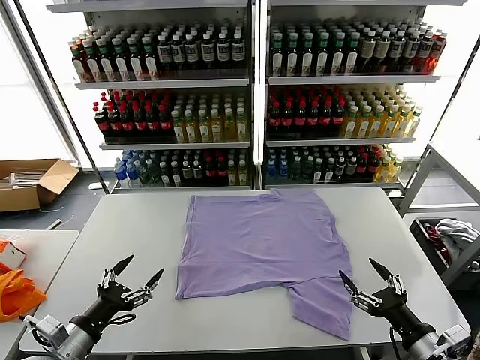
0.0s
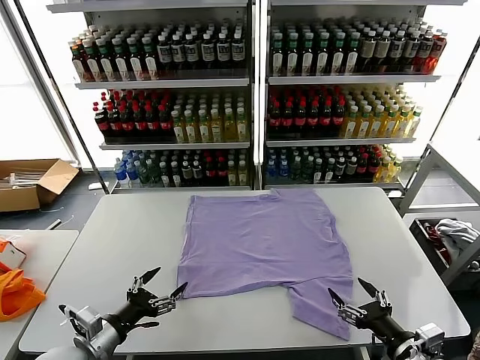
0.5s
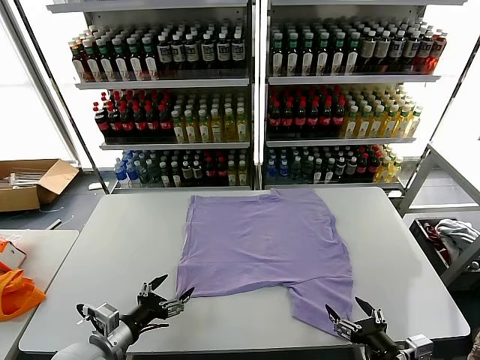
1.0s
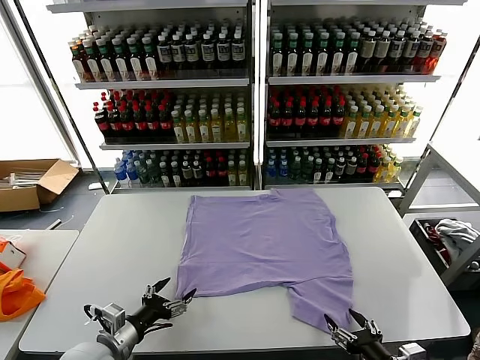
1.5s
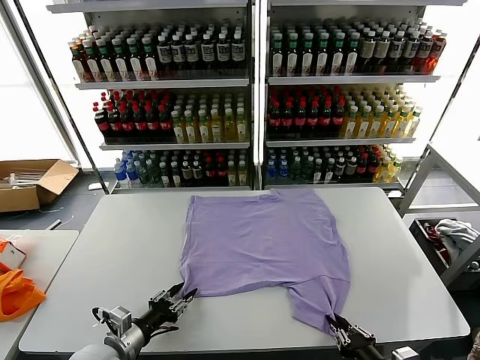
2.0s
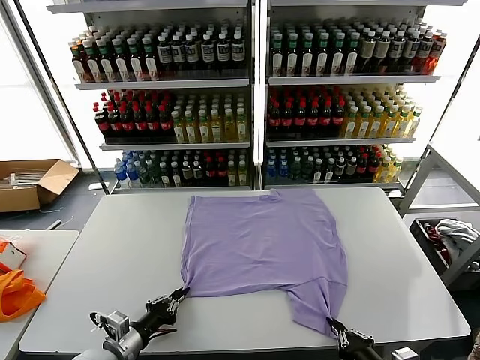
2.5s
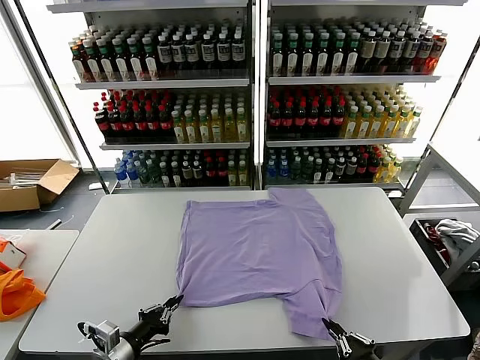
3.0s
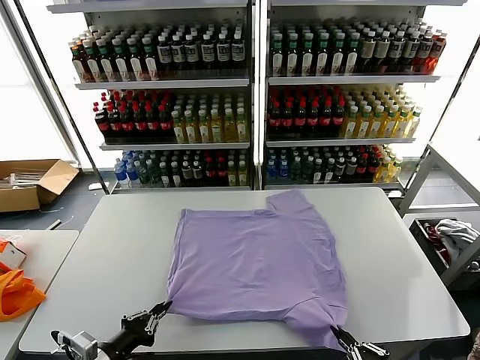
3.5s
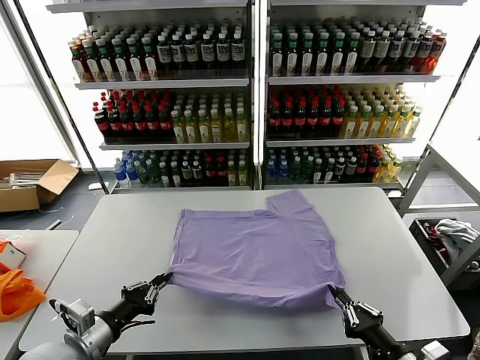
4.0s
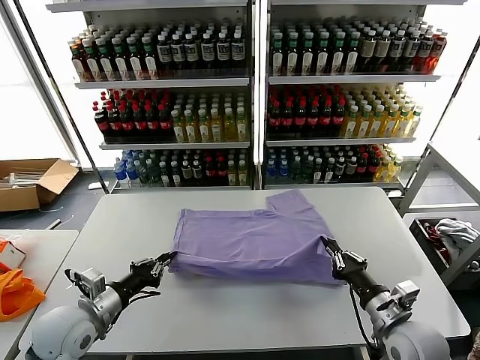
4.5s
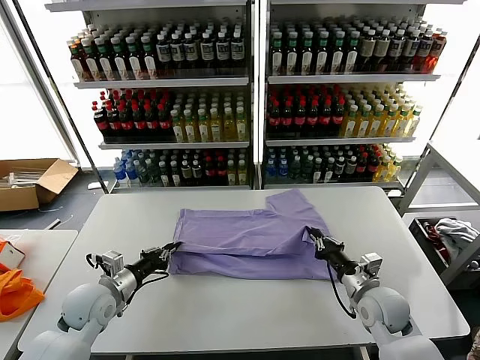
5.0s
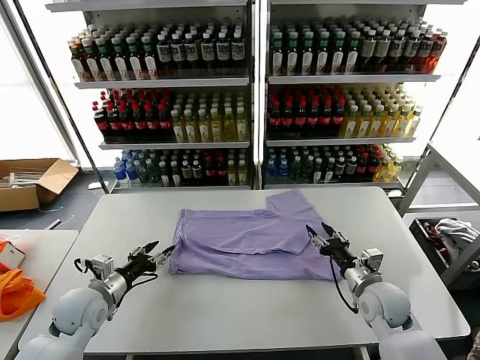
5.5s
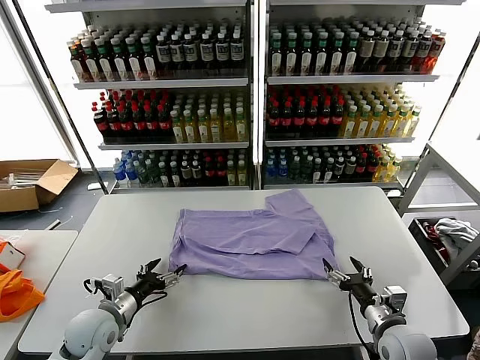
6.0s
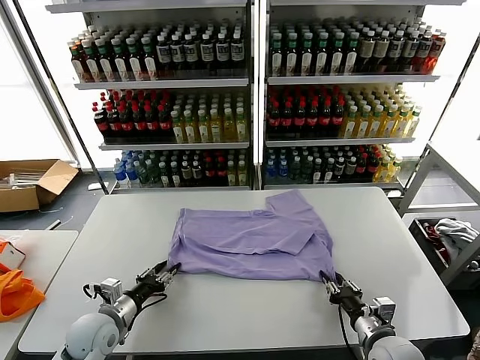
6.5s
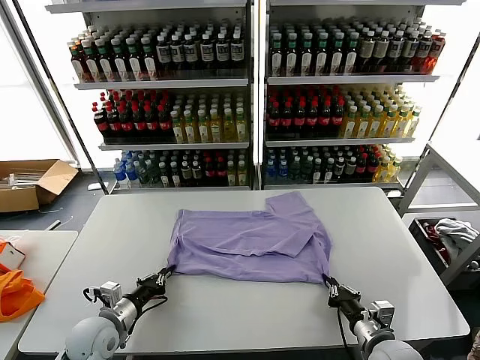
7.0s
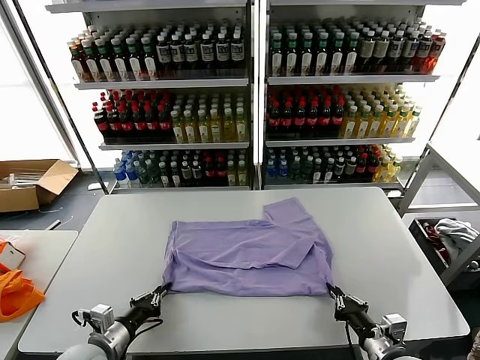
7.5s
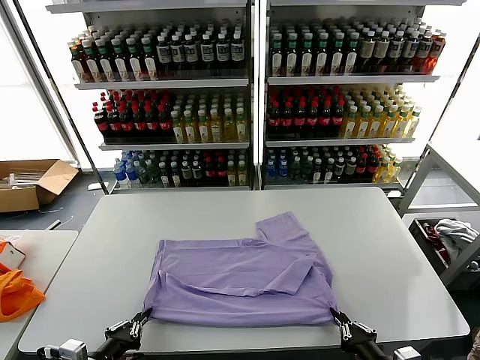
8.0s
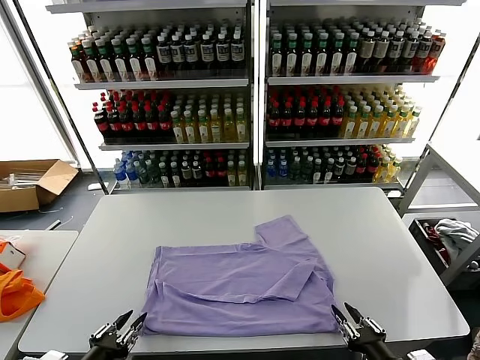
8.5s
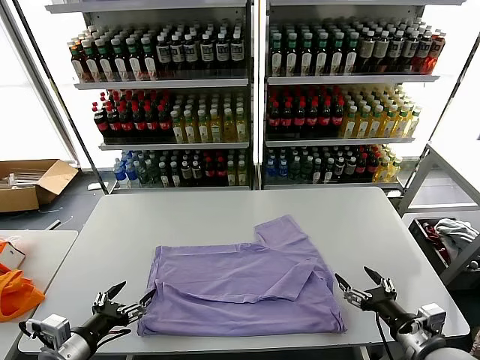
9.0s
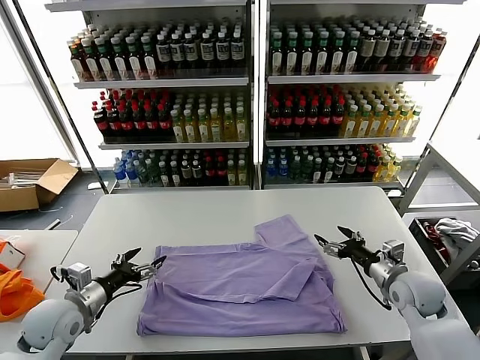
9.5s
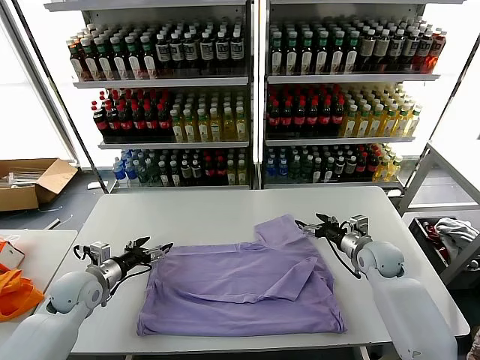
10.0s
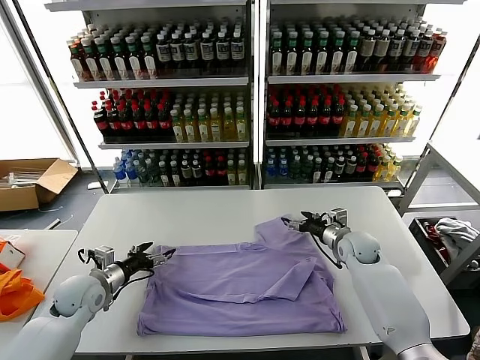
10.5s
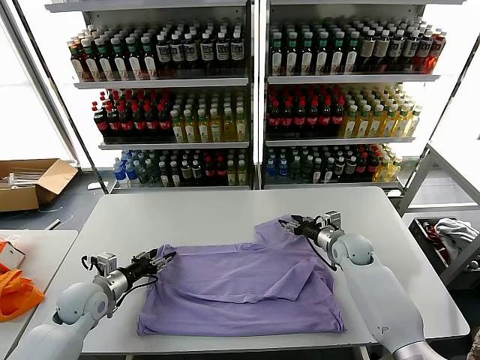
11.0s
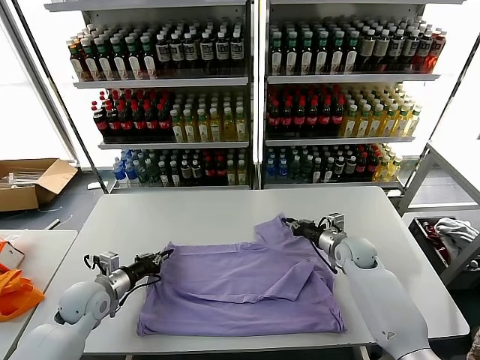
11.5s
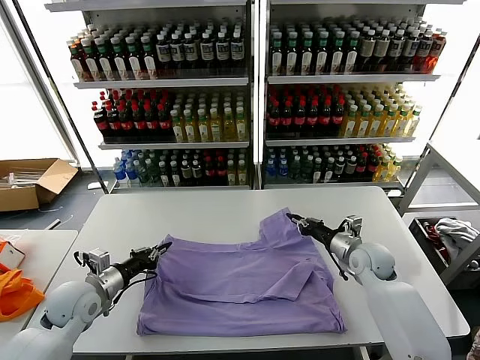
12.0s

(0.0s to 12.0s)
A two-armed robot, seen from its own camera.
Task of the whole recording: fold and organize the clothes.
Step, 0.0s - 2.5s: use both grippers simultaneously to clamp the lower edge of the clothing fabric.
Step, 3.0s - 5.0s: use both grippers to drag the lower edge of the fabric forward and fold it over the upper edge.
Step, 5.5s - 8.0s: Drag the clothes downward with both gripper.
Step, 8.5s - 11.0s: use both grippers simultaneously to clamp the upper edge of the clothing fabric.
2.0s - 4.0s: The right gripper shifts by some 5 cm. Meanwhile the left gripper goes roughly 10 cm upward, and closes up.
4.0s - 6.0s: Both grippers move forward and downward, about 10 cm. The right gripper opens up. Meanwhile the left gripper opens.
6.0s - 8.0s: Both grippers move backward, roughly 15 cm. The right gripper closes. The left gripper closes up.
8.0s - 10.0s: The left gripper is displaced forward by some 20 cm, and opens its fingers; the right gripper heads forward, covering approximately 35 cm, and opens its fingers.
10.0s - 12.0s: The left gripper closes. The right gripper closes.

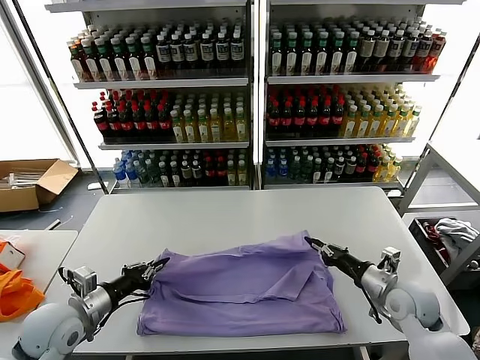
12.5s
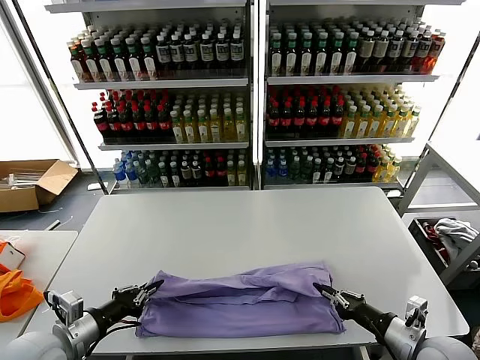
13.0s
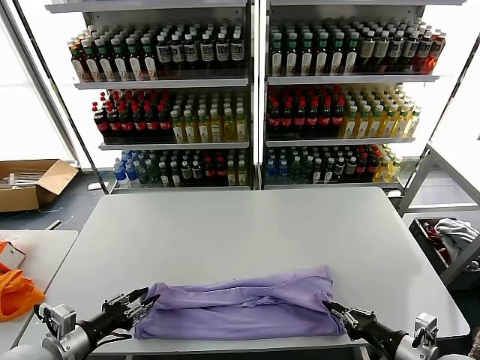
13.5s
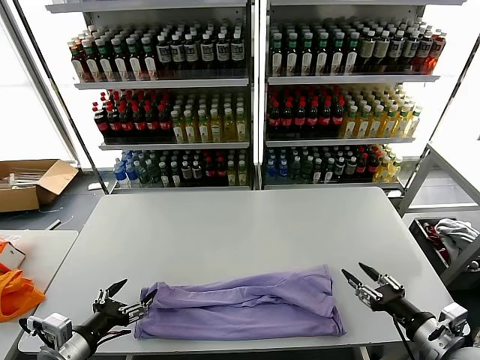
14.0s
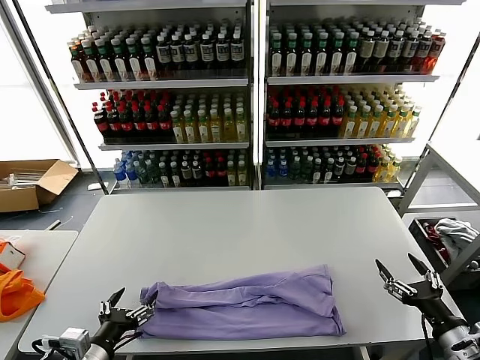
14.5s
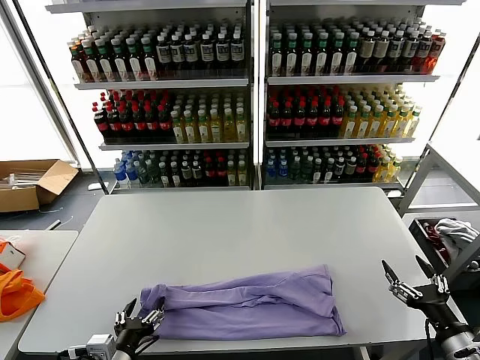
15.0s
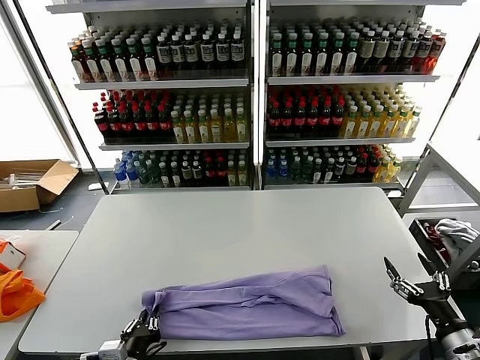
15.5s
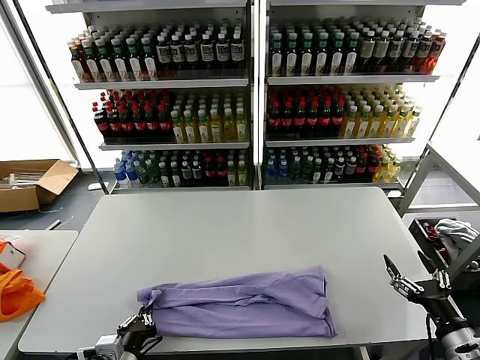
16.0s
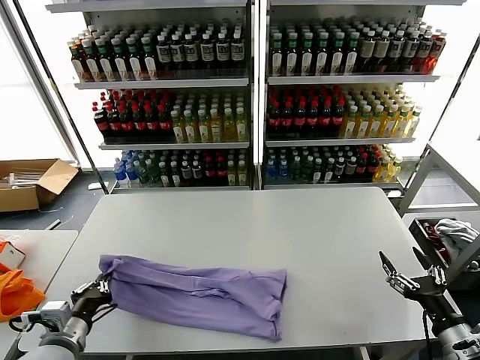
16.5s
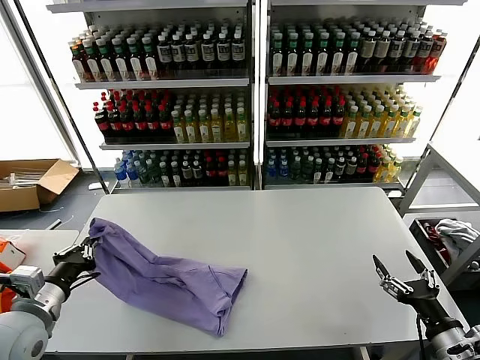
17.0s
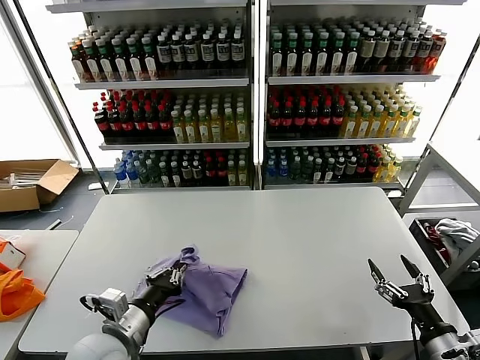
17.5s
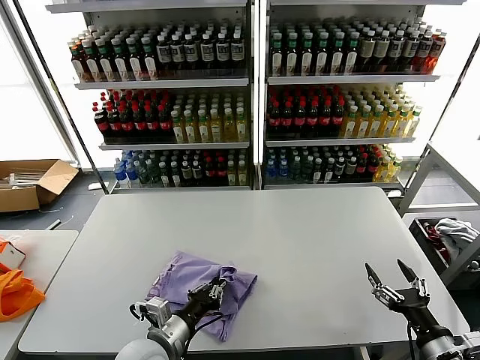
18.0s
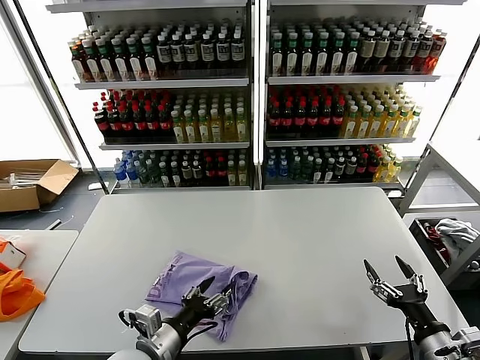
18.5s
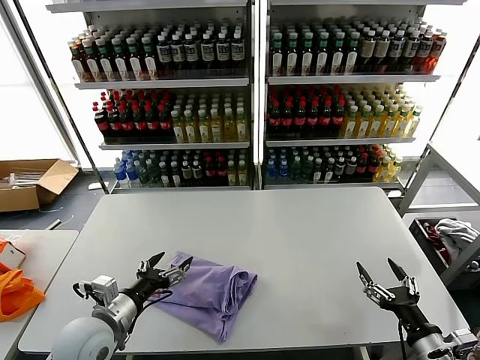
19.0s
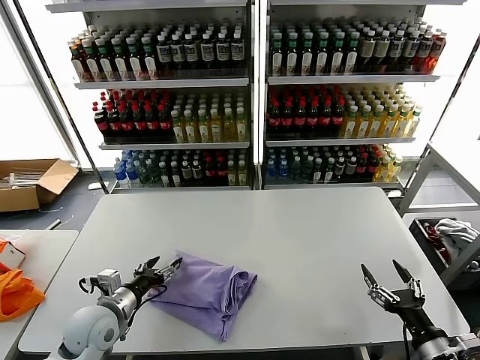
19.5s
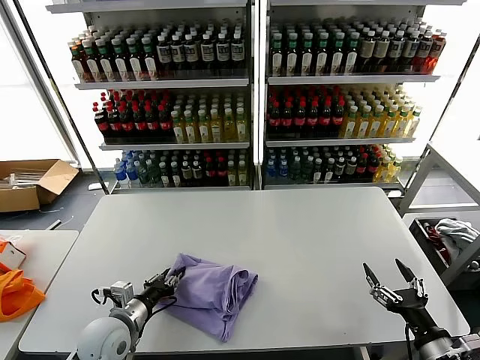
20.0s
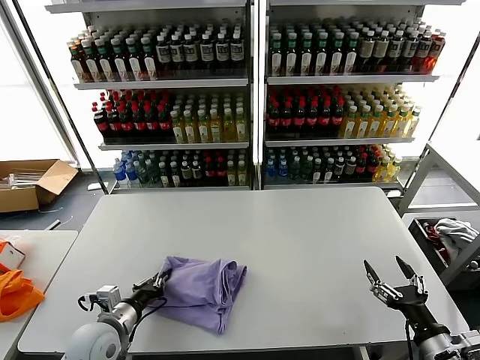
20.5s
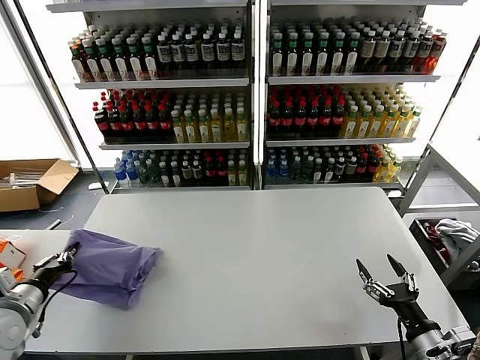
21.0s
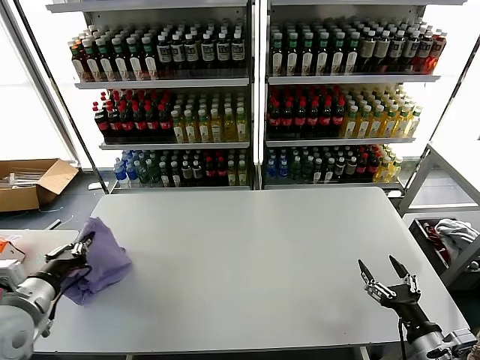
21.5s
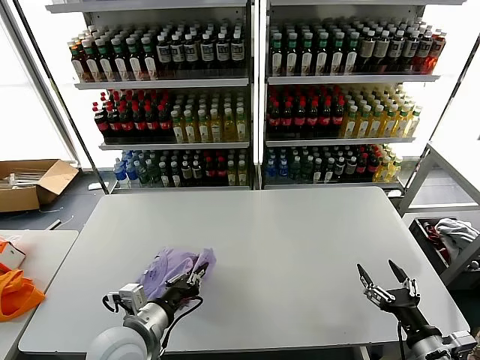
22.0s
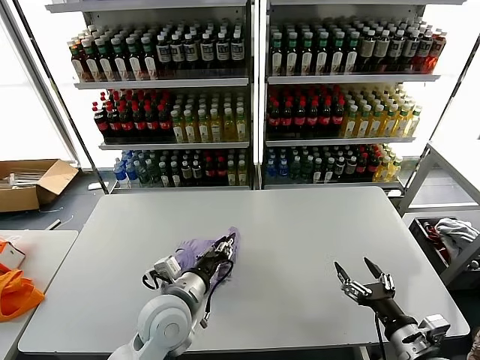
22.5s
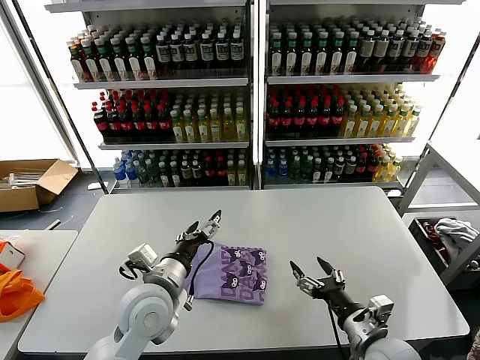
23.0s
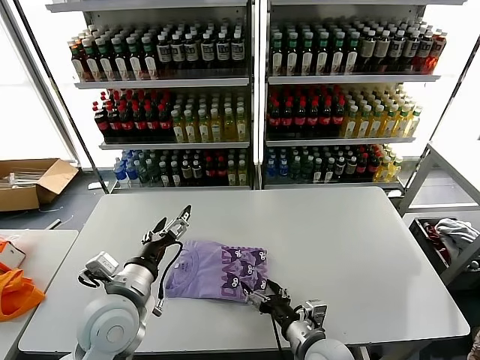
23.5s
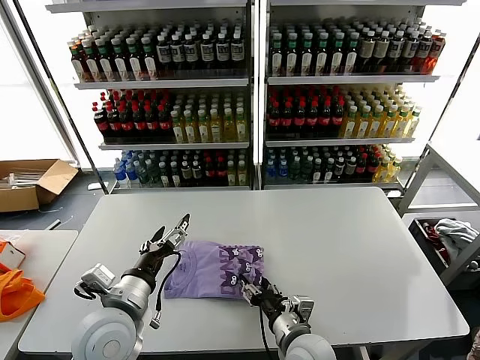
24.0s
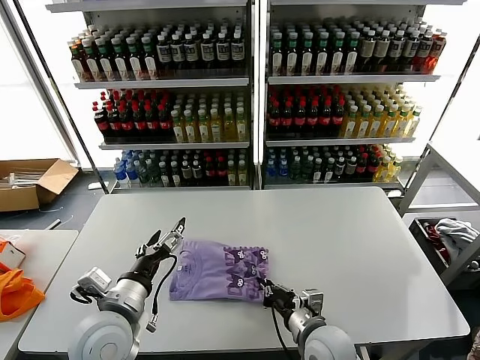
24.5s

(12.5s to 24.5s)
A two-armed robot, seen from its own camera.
Task of the whole recording: fold and organize the clothes.
Step, 14.0s - 16.0s: use the left gripper to clamp the left edge of the fabric.
Step, 16.5s - 18.5s: use the left gripper to drag the left edge of the fabric to the left and folds it over the right edge.
Step, 19.0s - 22.5s: Flip the folded clothes over with left gripper.
12.5s - 14.5s: The right gripper moves backward and to the right, roughly 15 cm, and opens; the left gripper heads backward, covering some 10 cm, and opens up.
14.5s - 16.5s: The left gripper moves about 10 cm to the right and comes back, and closes up.
16.5s - 18.5s: The left gripper travels to the right by some 15 cm, and opens its fingers.
18.5s - 20.5s: The left gripper moves to the left and forward, about 10 cm, and closes.
20.5s - 22.5s: The left gripper shifts approximately 15 cm to the right and upward.
22.5s - 24.5s: The left gripper shifts approximately 10 cm to the left, and opens, while the right gripper travels to the left by about 20 cm, and closes.

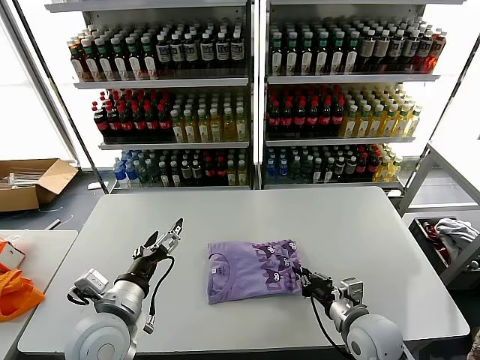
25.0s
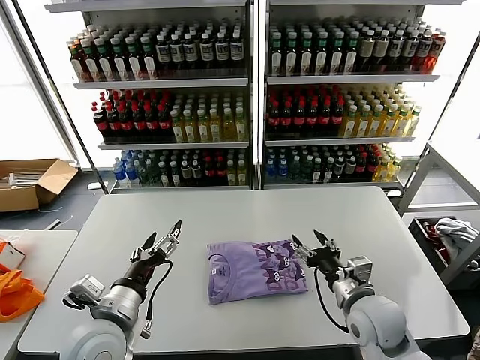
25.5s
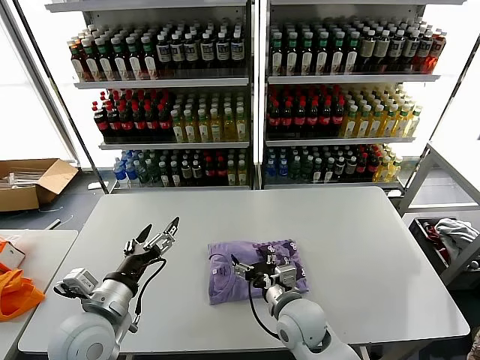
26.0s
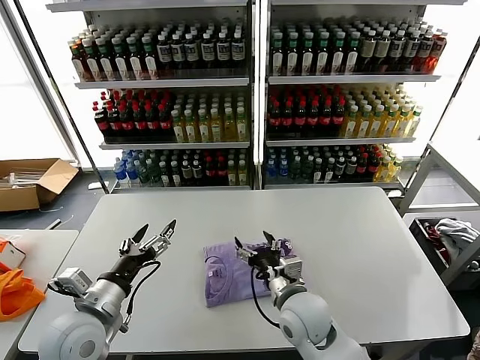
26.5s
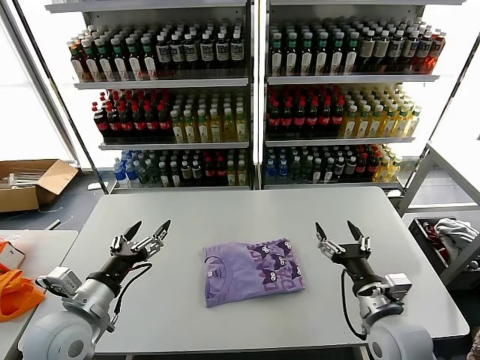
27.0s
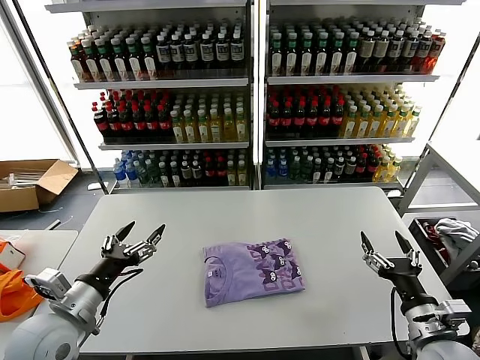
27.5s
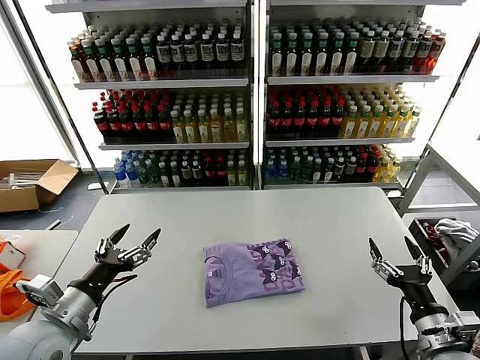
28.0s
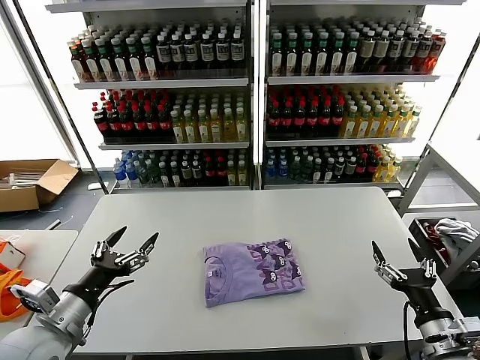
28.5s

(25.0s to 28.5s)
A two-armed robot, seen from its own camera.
Task of the whole recording: fold and organize the clothes.
25.0s - 27.0s: The right gripper heads upward, covering roughly 5 cm, reaches approximately 15 cm to the left, then returns, and opens, while the left gripper moves to the left, roughly 5 cm.
27.0s - 28.5s: The right gripper heads to the right and backward, covering about 15 cm.
